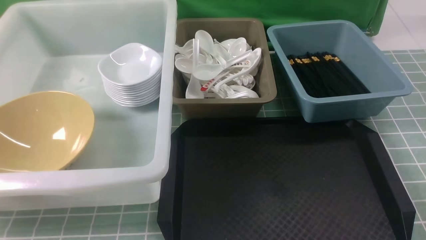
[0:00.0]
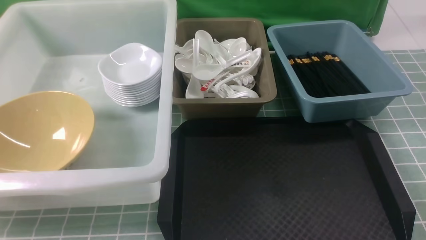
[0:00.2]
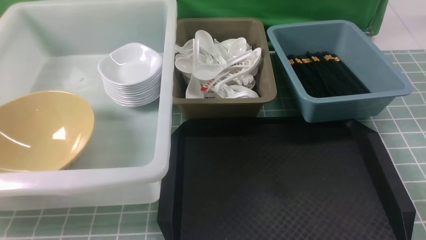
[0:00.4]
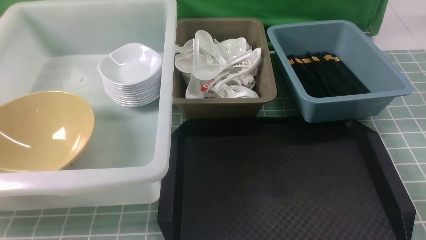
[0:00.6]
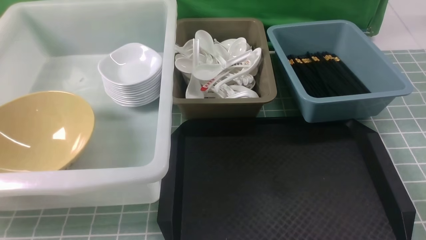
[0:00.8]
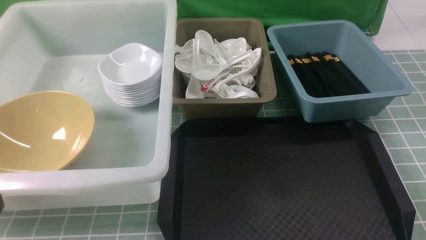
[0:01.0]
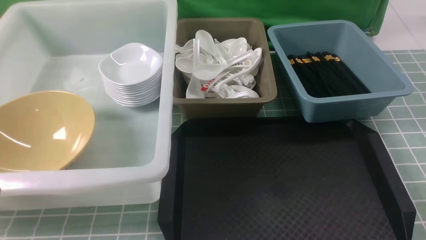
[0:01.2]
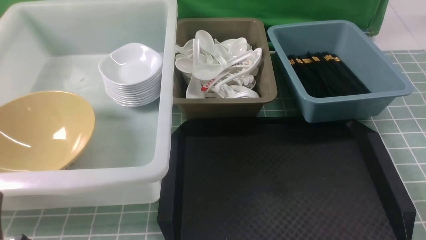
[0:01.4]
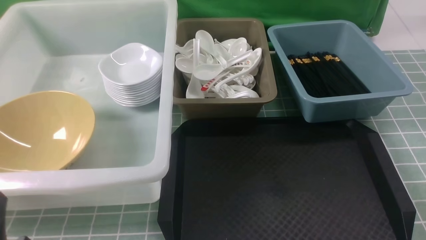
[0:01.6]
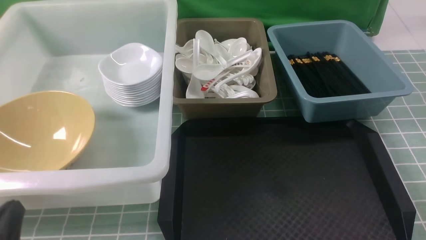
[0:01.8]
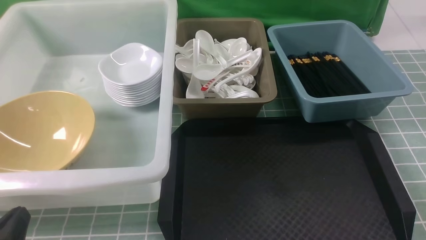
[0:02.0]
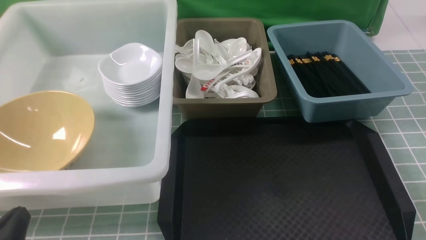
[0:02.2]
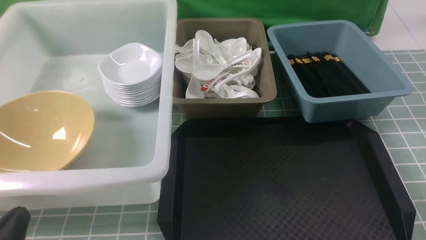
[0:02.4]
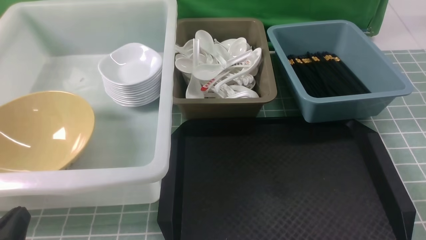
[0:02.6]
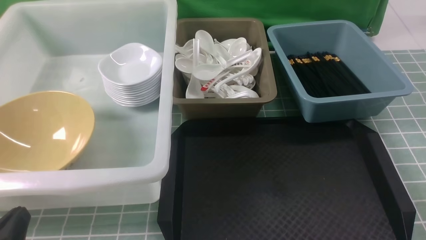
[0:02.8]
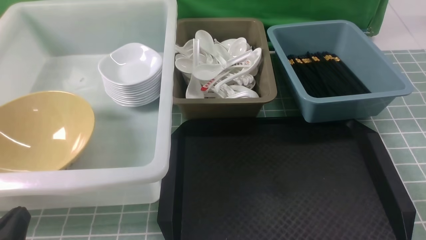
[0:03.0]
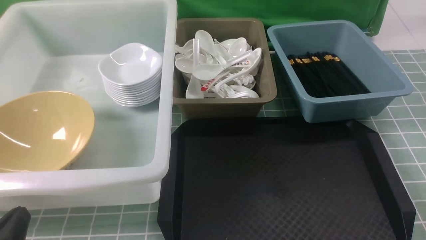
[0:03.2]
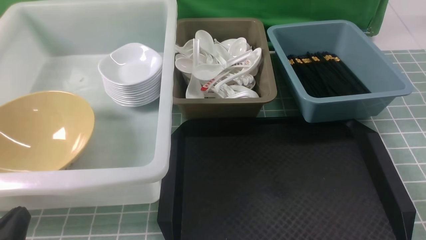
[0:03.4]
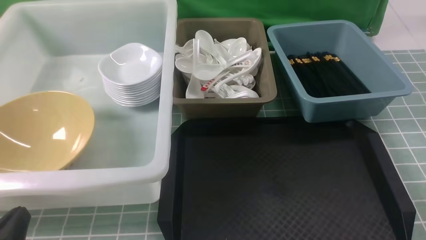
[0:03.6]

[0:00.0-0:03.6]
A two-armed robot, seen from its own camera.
Task of the whole recording: on blue table put chopsticks spoon bowls plates into blue grey white boxes.
0:00.0 to 0:01.8: The left gripper travels downward by approximately 10 cm.
0:01.8 to 0:03.6: Both grippers stay about where they are.
